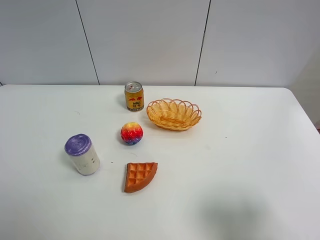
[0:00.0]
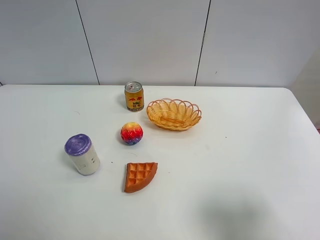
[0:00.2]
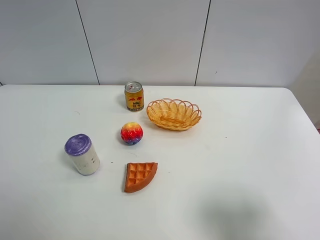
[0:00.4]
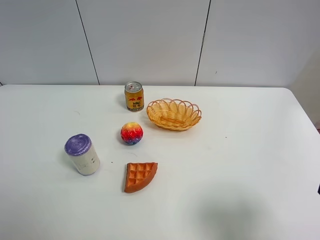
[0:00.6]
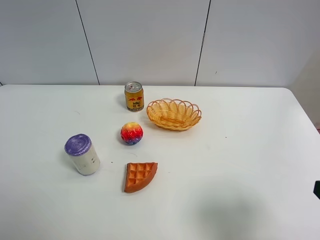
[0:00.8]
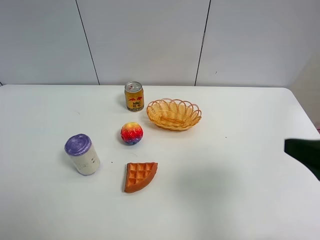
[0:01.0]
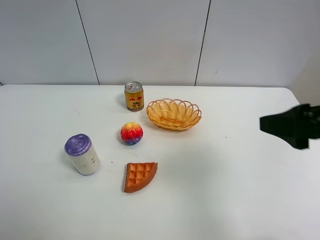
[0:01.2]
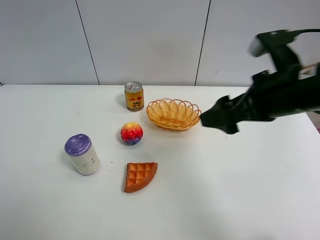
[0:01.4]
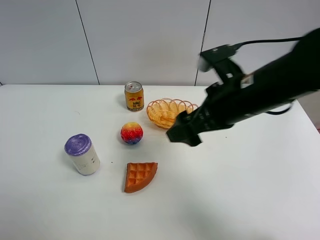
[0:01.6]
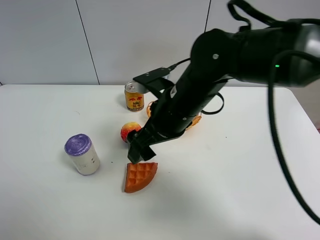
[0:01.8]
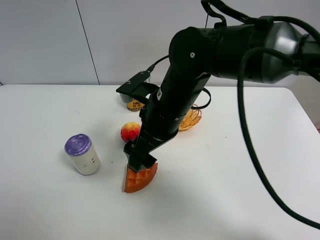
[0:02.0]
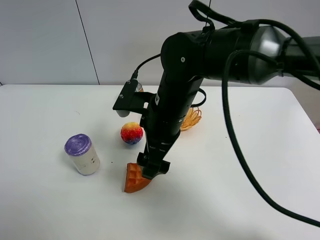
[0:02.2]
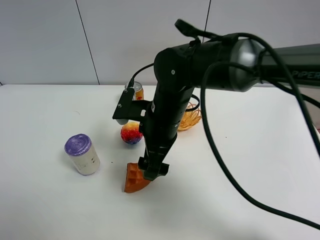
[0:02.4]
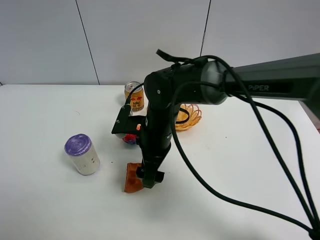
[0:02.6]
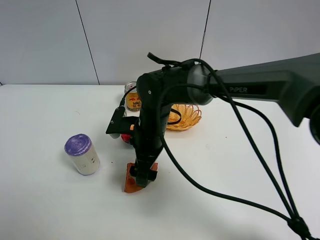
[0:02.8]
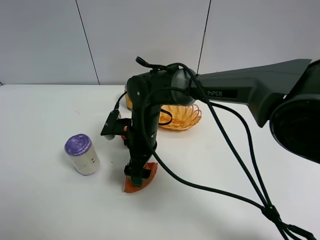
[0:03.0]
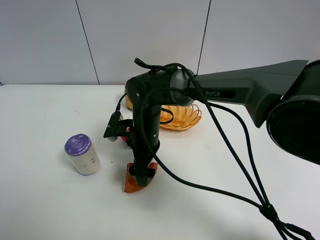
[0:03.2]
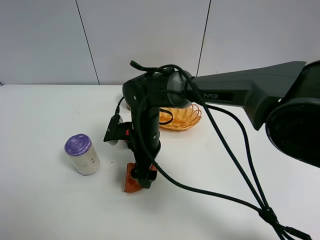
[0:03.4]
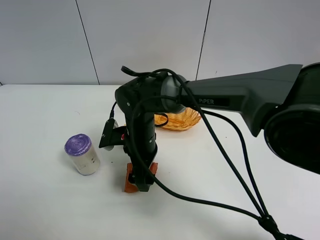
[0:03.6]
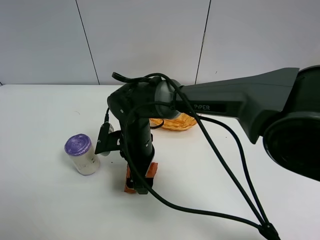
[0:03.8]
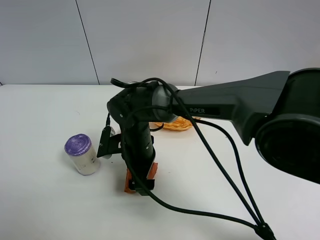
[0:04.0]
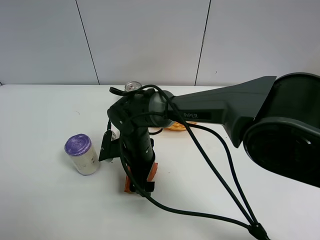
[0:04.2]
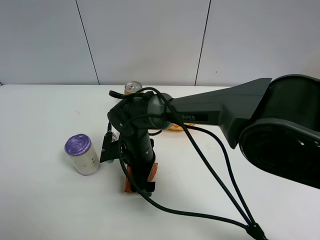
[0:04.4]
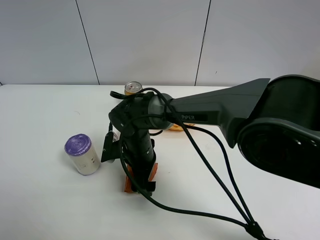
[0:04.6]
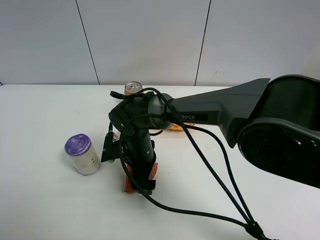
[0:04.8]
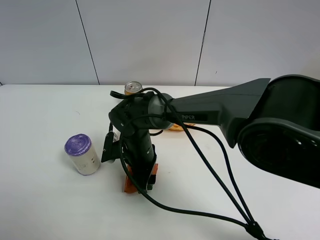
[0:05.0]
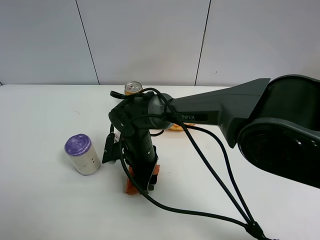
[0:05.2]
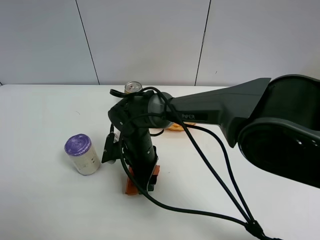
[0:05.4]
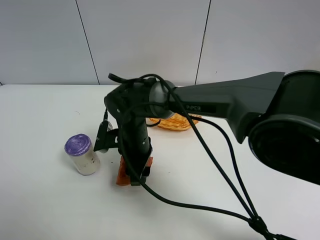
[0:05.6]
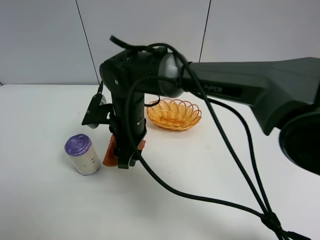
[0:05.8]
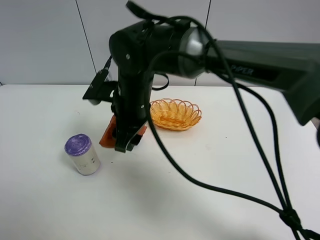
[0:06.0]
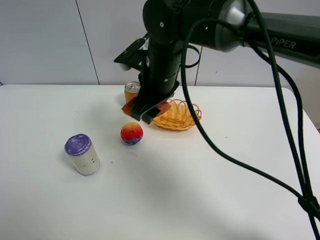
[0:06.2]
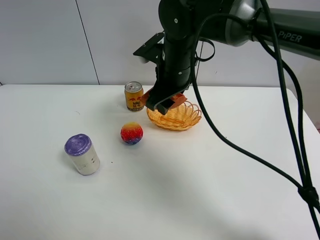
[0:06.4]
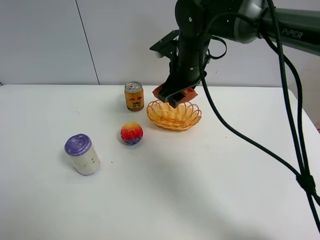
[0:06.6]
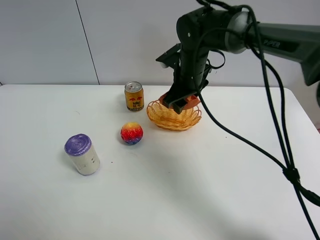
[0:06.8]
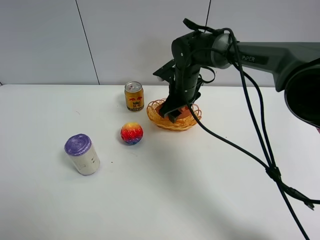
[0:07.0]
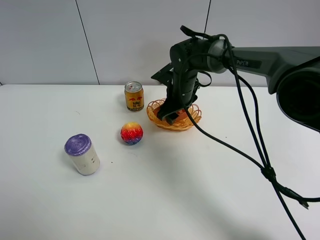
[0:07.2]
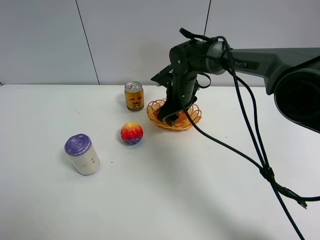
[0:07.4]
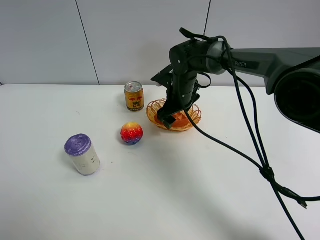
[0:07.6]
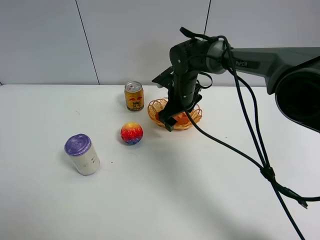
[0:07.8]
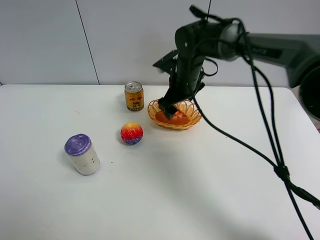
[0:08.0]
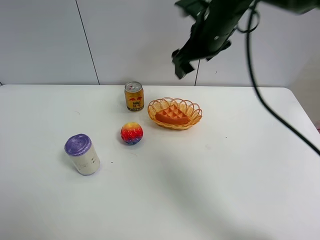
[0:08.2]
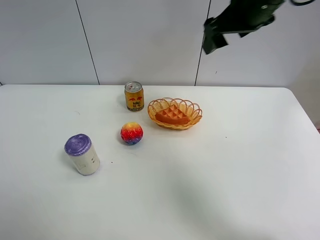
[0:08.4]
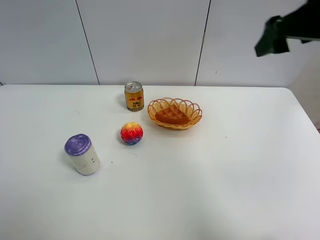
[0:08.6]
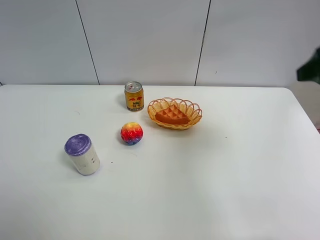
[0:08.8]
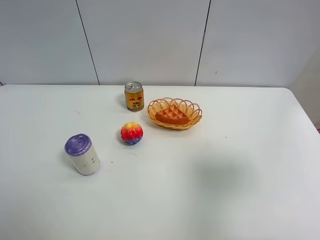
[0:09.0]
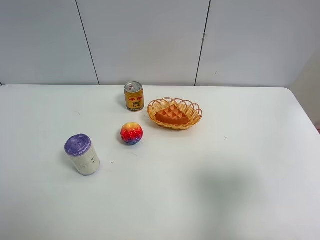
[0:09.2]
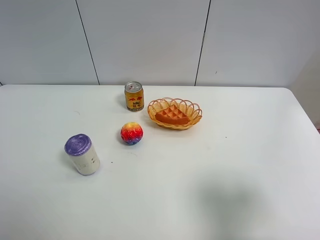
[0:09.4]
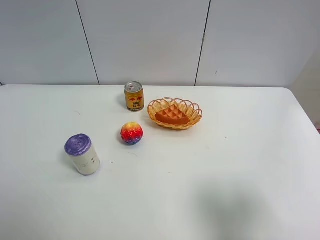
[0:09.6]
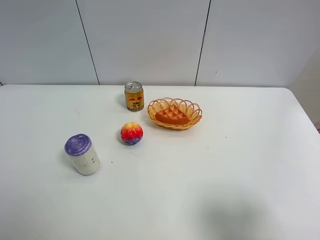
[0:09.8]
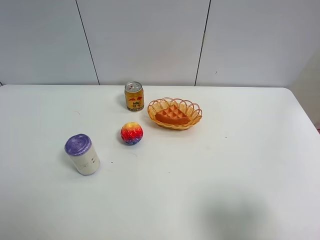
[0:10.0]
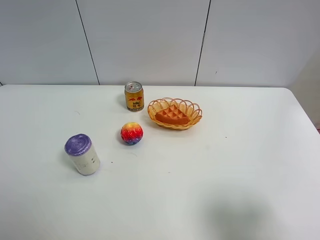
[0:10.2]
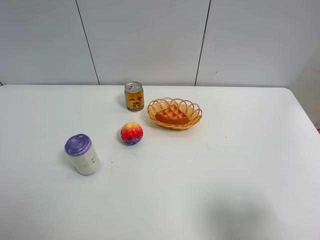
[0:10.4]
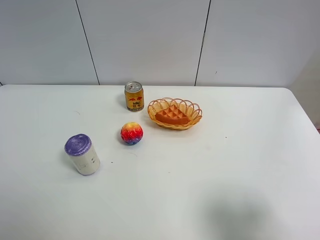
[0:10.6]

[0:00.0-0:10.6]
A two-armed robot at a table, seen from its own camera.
Task of the whole recording: Put the bakery in the basket.
Step, 0:00.0 to 0:05.0: Grasp the bread with right gripper.
Step, 0:05.2 to 0:08.0: Place the bread in the basket with right gripper.
0:00.0 to 0:01.6: The right gripper travels forward and to the left by approximately 30 cm.
0:01.6 to 0:03.0: The right gripper travels downward, to the left and forward by about 20 cm.
0:04.6 to 0:06.0: The right gripper goes approximately 15 cm upward, and closes its fingers.
0:06.0 to 0:07.6: The right gripper moves forward, to the right and downward, some 20 cm, and opens up.
0:07.6 to 0:09.0: The right gripper moves backward, to the right and upward, approximately 40 cm.
0:09.0 to 0:10.6: The right gripper goes approximately 10 cm backward and downward.
